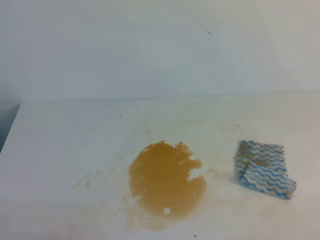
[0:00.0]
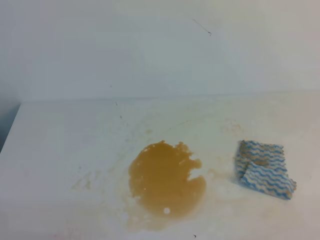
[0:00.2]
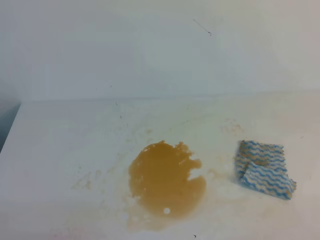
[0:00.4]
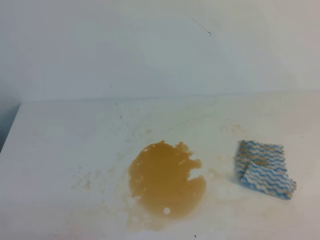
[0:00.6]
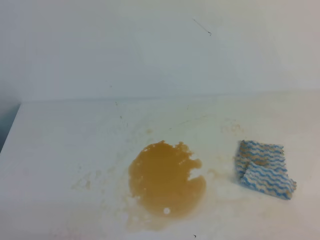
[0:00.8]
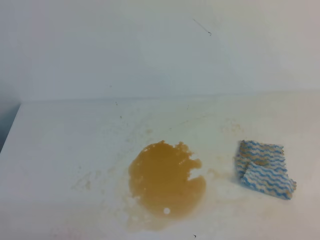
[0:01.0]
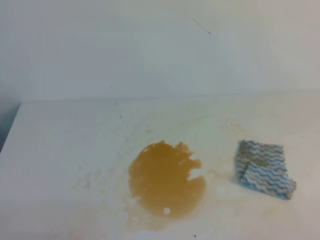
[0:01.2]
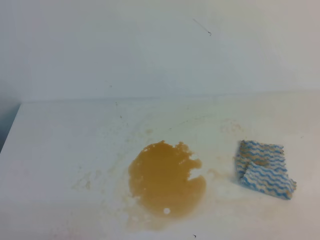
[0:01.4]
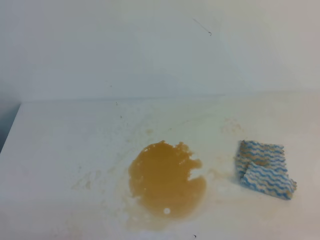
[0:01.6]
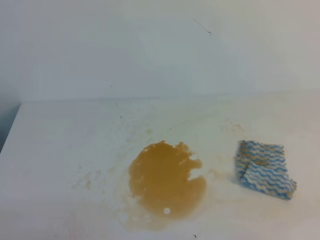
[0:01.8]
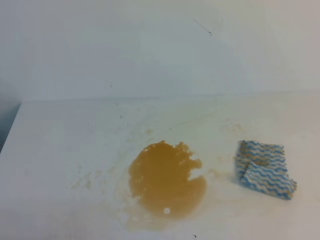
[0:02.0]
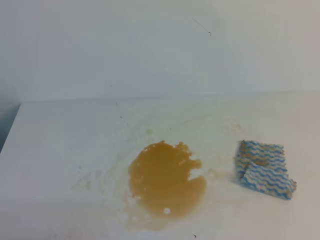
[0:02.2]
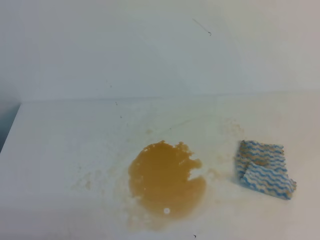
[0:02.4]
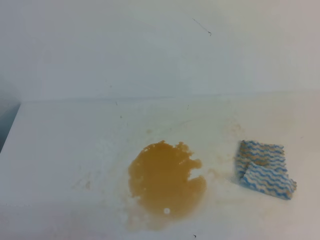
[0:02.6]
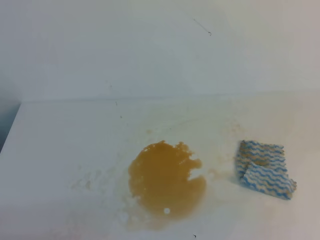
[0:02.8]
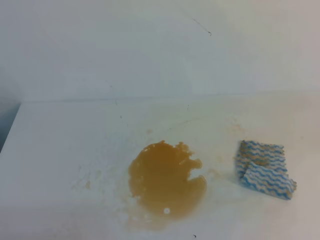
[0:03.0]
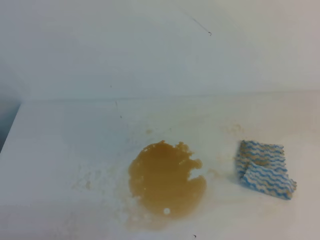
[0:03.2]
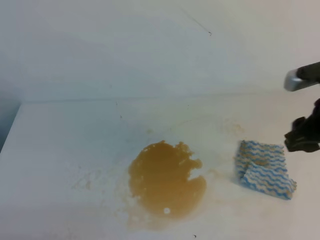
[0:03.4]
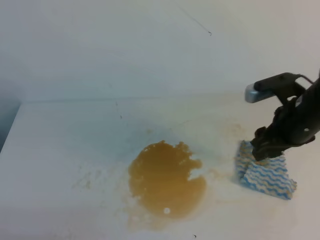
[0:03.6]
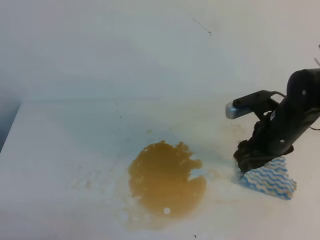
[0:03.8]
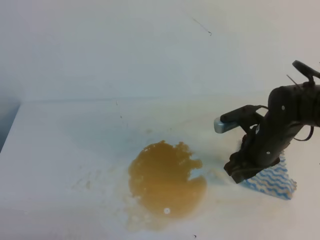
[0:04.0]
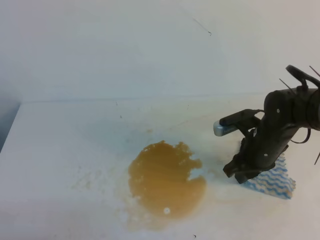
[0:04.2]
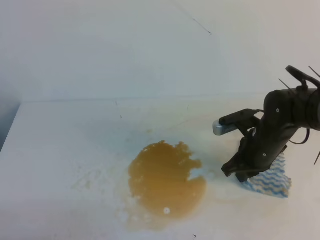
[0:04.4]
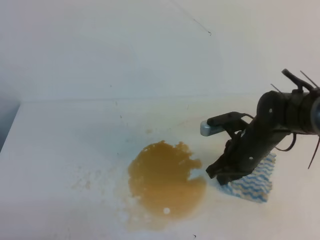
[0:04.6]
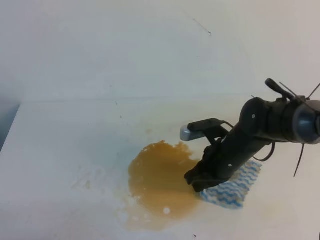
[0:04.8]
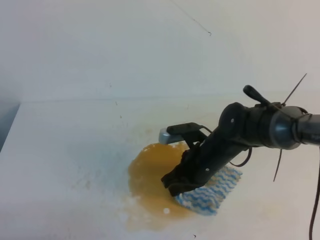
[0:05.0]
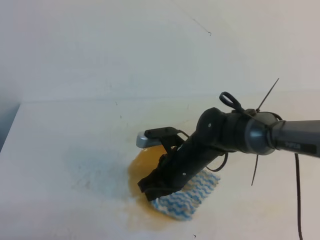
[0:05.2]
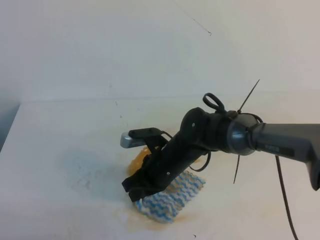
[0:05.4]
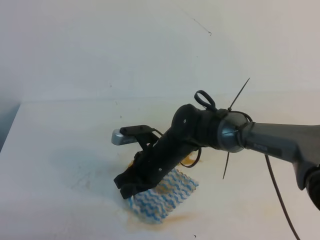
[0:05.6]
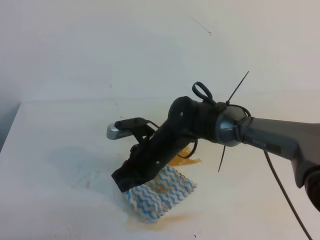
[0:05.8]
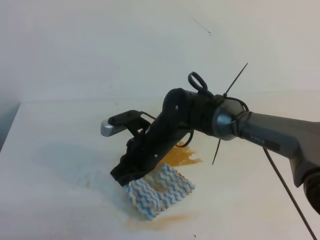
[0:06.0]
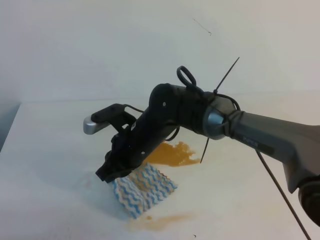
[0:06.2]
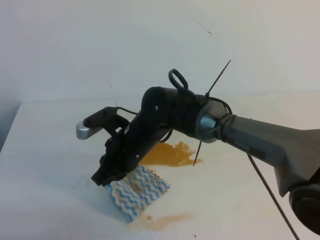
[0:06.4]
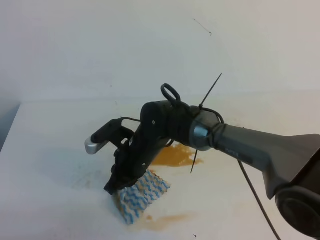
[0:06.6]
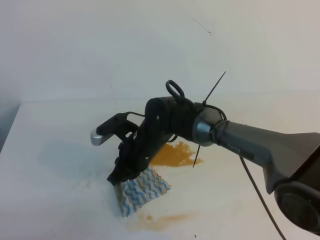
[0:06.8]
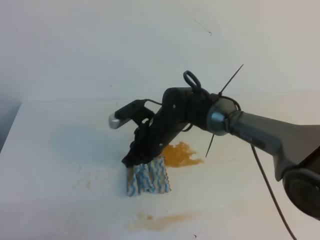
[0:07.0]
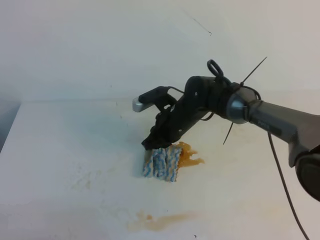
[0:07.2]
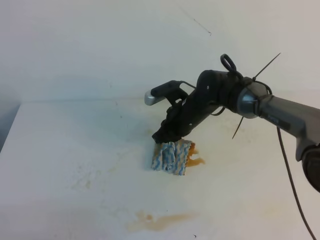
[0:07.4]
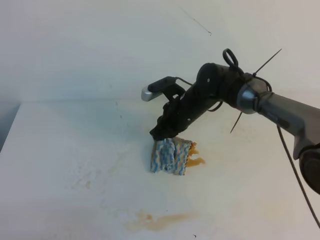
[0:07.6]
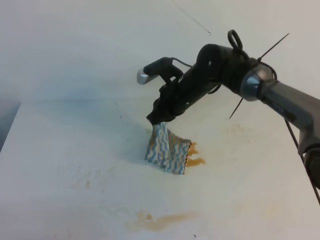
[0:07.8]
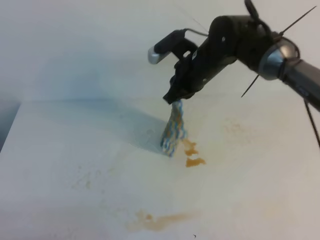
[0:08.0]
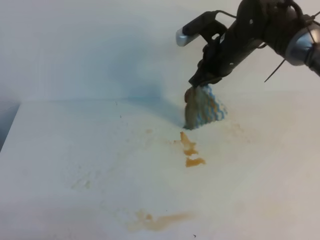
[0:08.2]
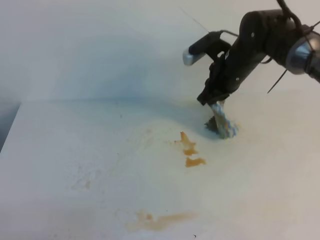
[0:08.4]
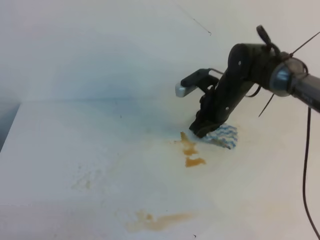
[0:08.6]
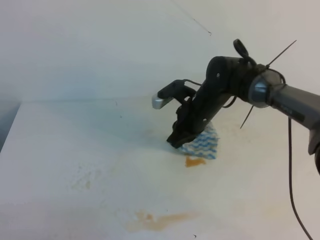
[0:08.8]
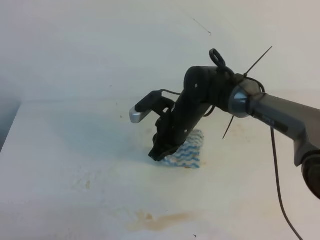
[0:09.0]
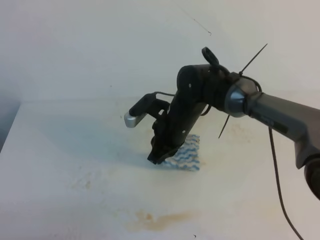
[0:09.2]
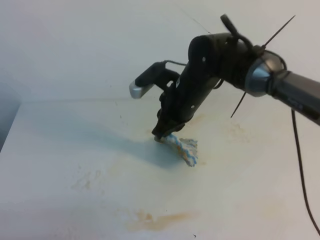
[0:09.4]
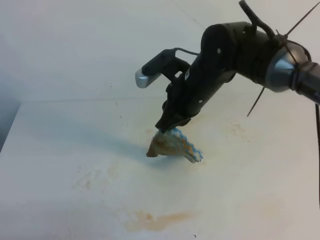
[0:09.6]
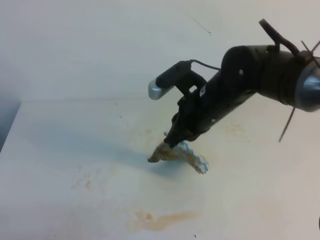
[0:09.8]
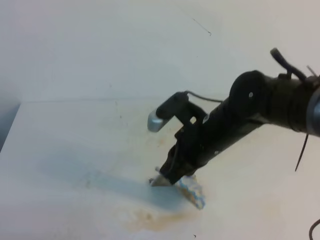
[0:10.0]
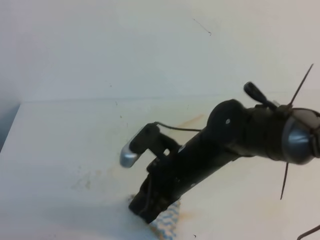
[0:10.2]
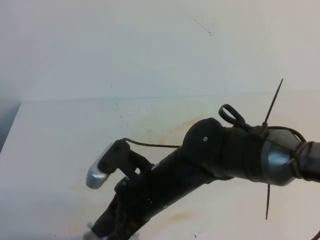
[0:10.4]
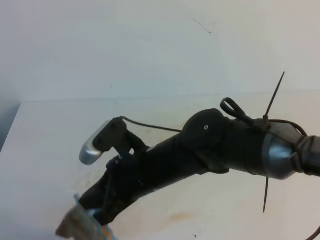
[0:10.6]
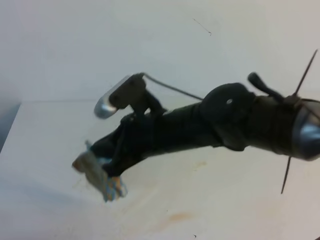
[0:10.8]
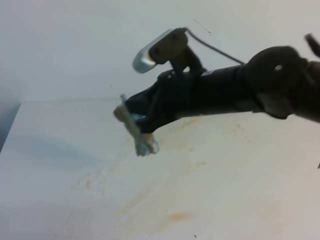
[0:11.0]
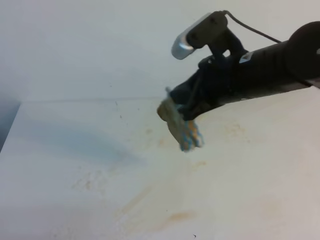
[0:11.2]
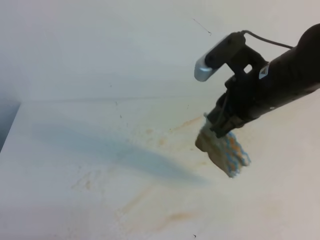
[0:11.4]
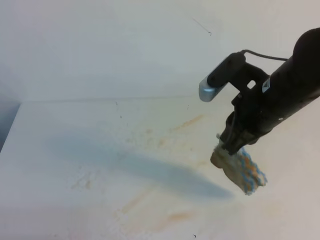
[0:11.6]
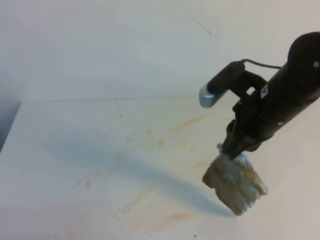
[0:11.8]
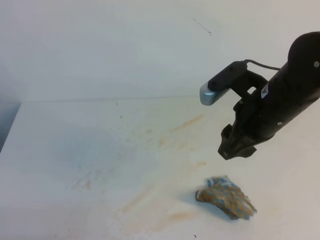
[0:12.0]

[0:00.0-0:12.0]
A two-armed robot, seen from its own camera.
0:03.0 to 0:04.4: The right gripper moves forward, downward and to the left, roughly 30 cm, and opens, then closes again.
0:04.4 to 0:06.0: The right gripper shifts approximately 20 cm to the left.
0:06.0 to 0:07.6: The right gripper goes roughly 15 cm forward and to the right.
0:07.6 to 0:09.0: The right gripper goes upward and returns, roughly 10 cm each way.
0:09.0 to 0:10.4: The right gripper travels backward by some 15 cm.
0:10.4 to 0:12.0: The right gripper heads to the right and upward, covering approximately 15 cm, and opens its fingers.

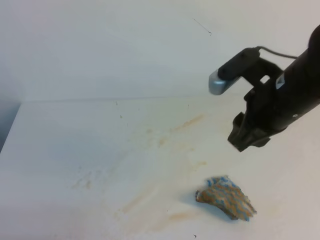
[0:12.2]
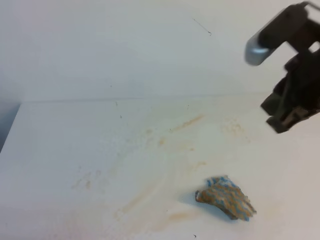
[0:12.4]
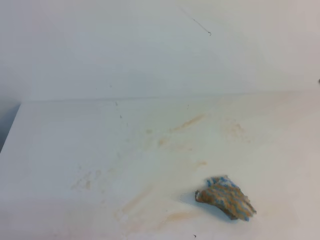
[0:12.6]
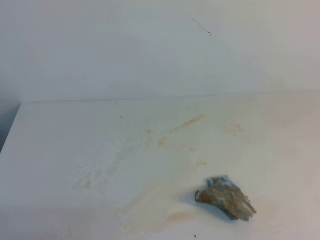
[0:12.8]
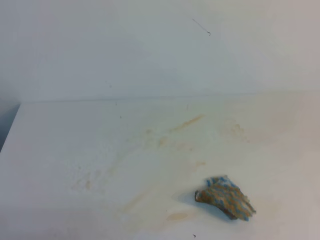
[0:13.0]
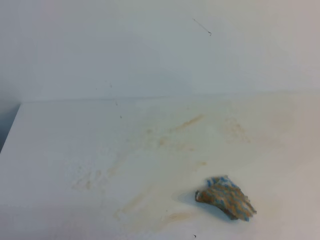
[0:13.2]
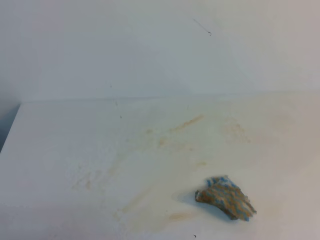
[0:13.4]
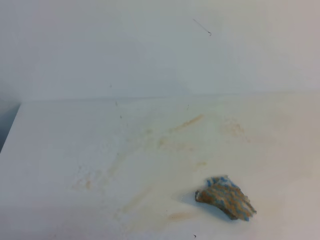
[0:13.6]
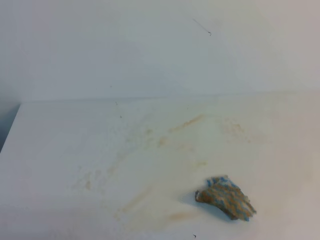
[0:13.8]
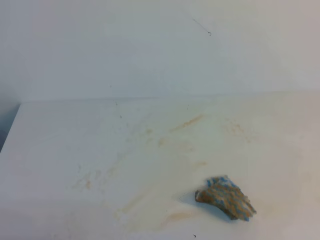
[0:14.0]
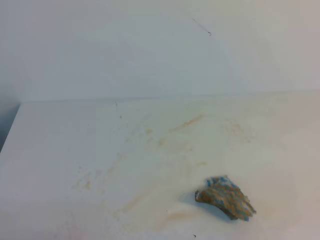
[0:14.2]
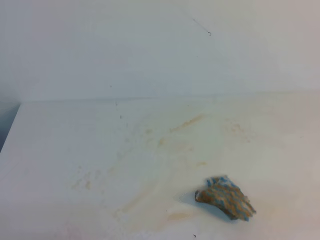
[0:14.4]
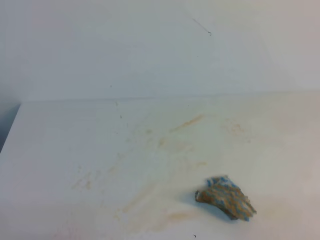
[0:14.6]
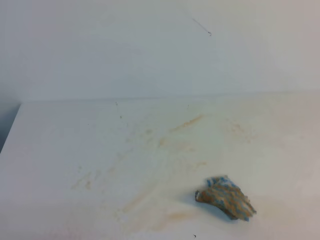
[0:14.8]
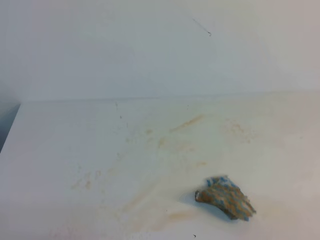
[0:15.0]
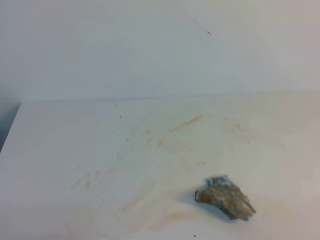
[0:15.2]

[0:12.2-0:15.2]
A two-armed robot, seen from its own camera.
0:12.2 to 0:13.8: The right gripper goes approximately 25 cm backward and to the right, and closes up.

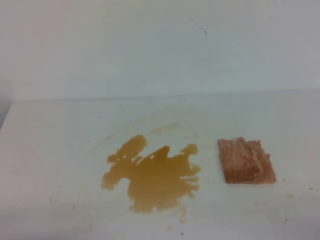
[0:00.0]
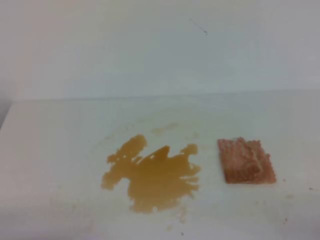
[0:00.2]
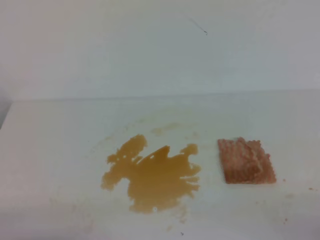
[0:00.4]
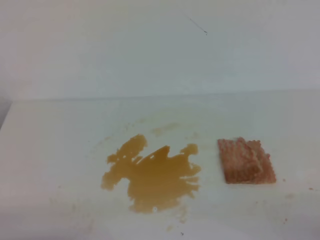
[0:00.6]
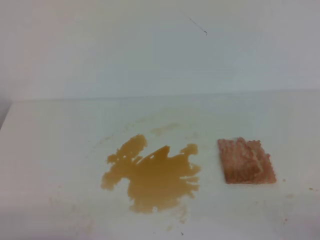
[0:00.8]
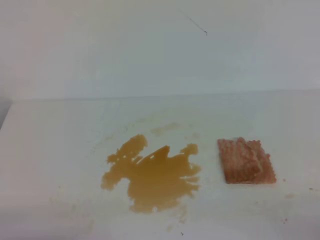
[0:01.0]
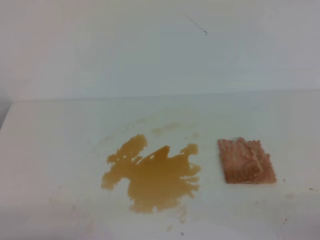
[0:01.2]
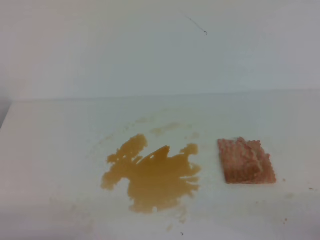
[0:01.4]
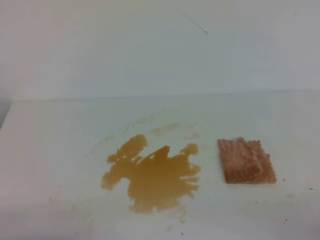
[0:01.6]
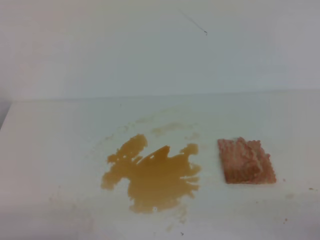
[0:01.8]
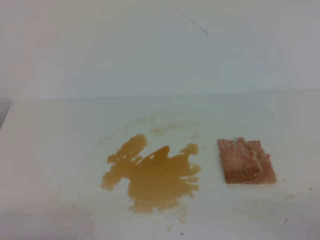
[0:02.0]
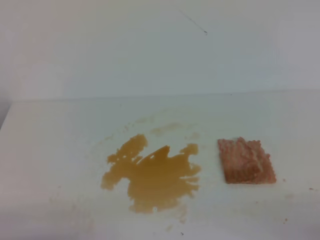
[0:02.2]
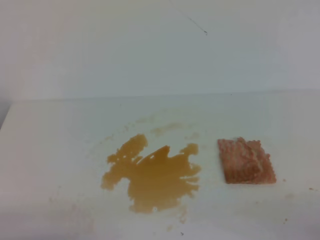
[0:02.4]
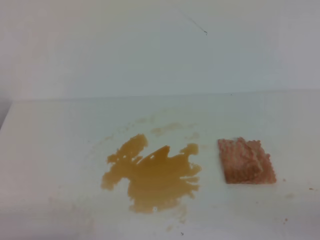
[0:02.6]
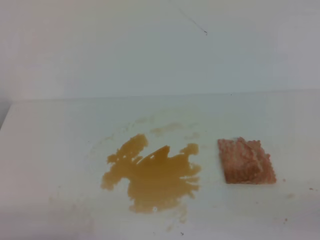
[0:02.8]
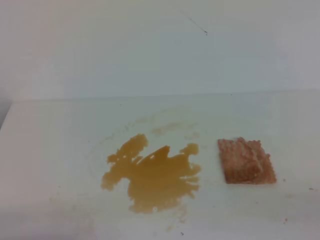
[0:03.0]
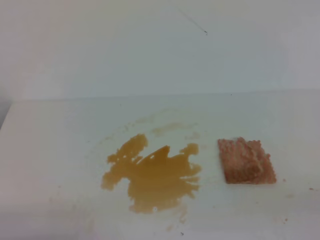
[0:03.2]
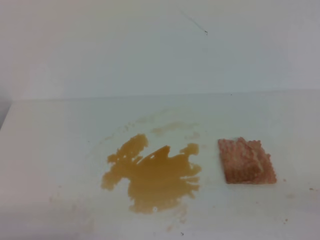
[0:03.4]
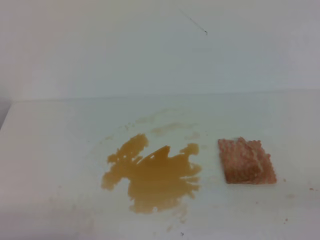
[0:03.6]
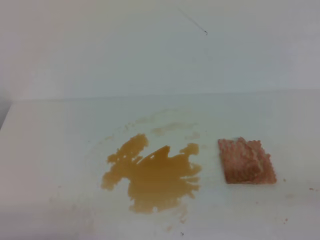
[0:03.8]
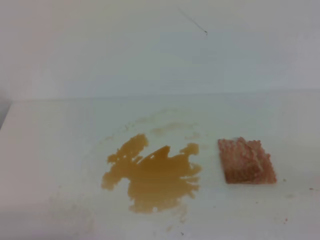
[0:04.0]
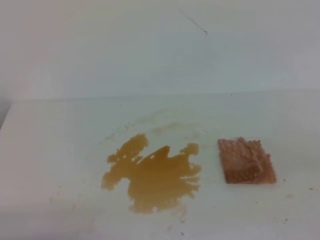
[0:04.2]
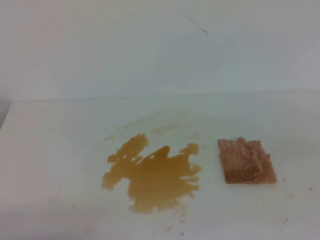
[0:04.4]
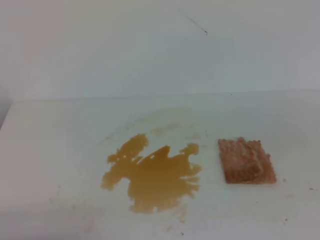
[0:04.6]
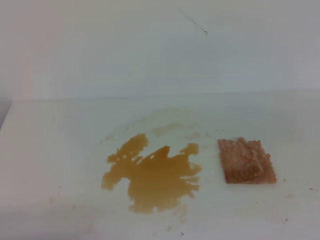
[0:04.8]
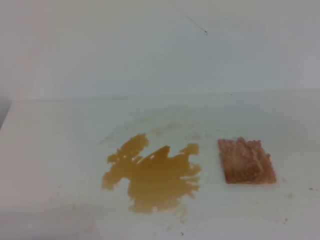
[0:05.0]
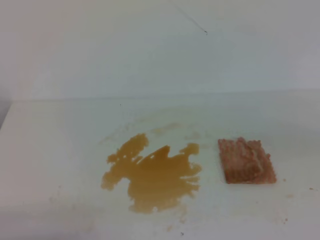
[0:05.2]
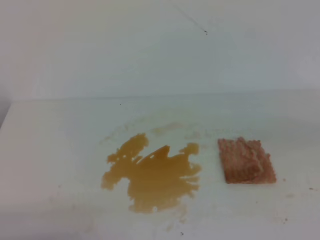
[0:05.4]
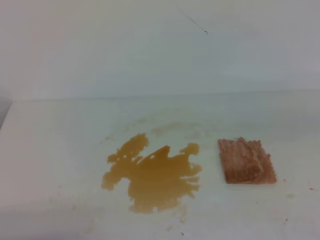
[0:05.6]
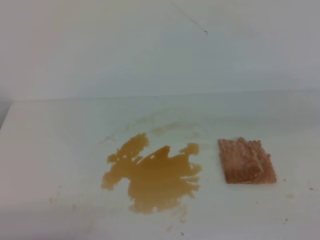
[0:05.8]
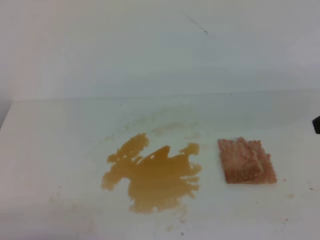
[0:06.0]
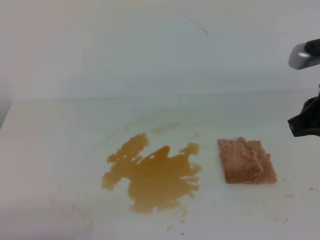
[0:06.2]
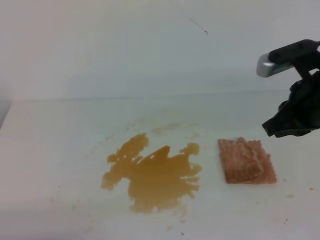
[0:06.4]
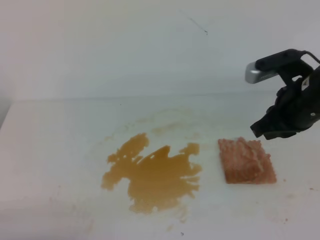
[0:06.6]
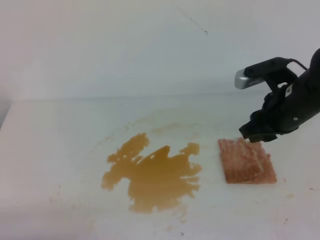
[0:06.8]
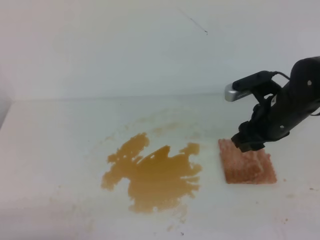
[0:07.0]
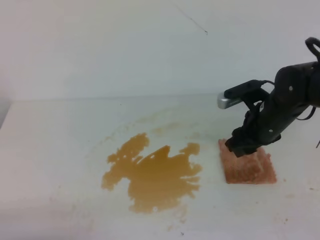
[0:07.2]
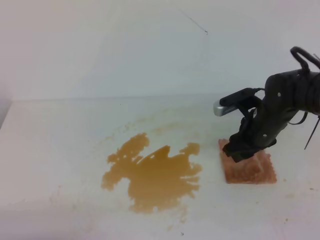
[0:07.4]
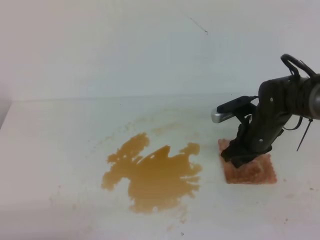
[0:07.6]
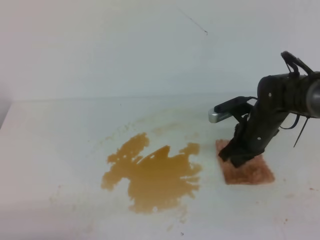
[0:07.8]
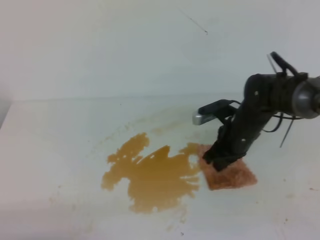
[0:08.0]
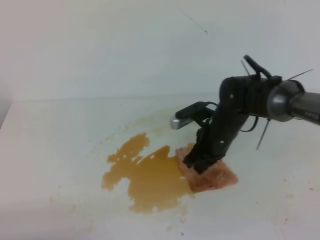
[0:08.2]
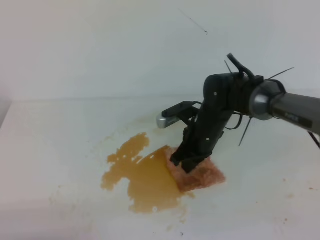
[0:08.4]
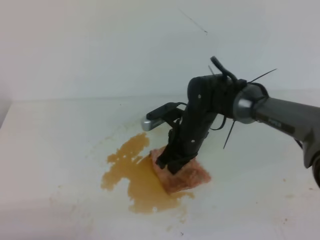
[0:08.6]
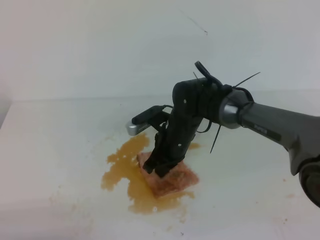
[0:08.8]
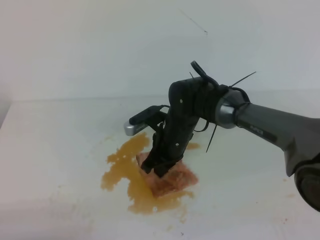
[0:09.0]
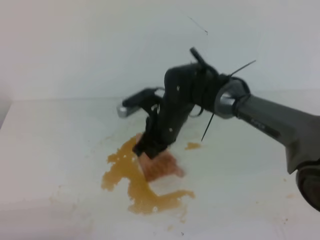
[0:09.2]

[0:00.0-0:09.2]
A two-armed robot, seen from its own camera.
0:00.0 to 0:01.6: Both grippers stay put.
0:04.6 to 0:06.2: The right gripper is displaced forward and to the left by about 15 cm.
0:06.2 to 0:07.6: The right gripper goes roughly 20 cm downward and forward, and opens its fingers.
0:07.6 to 0:09.2: The right gripper travels to the left by about 15 cm, and closes its fingers.
